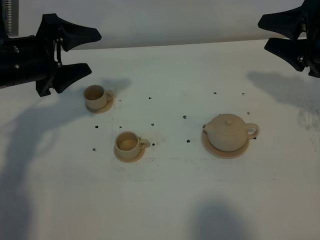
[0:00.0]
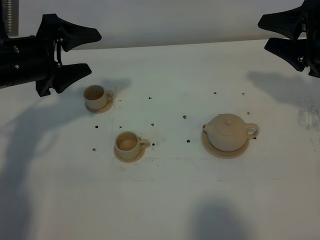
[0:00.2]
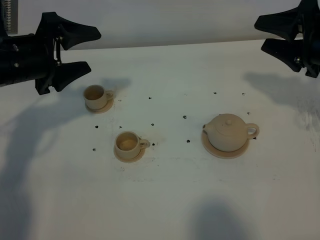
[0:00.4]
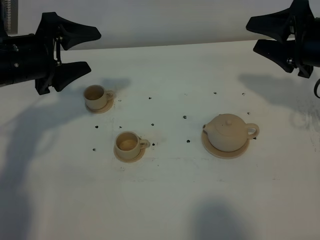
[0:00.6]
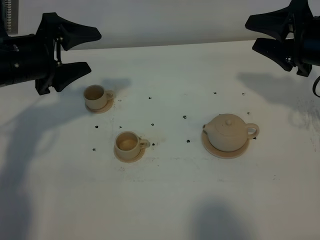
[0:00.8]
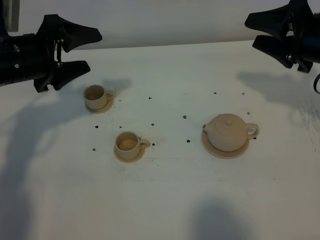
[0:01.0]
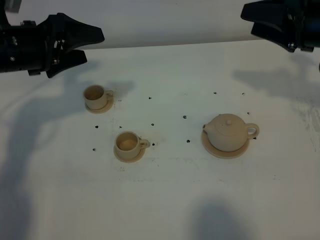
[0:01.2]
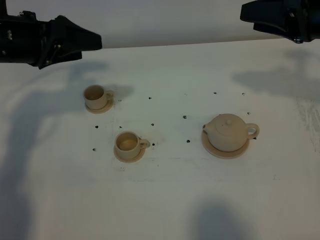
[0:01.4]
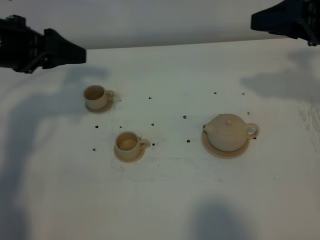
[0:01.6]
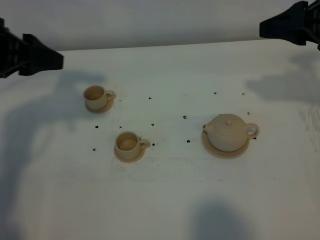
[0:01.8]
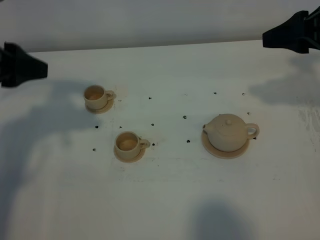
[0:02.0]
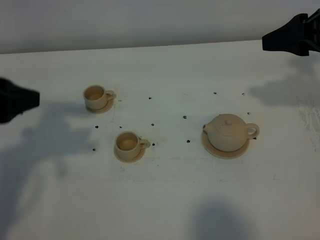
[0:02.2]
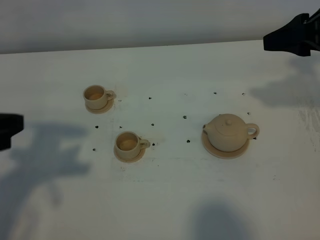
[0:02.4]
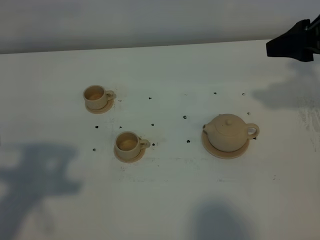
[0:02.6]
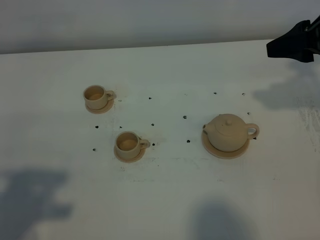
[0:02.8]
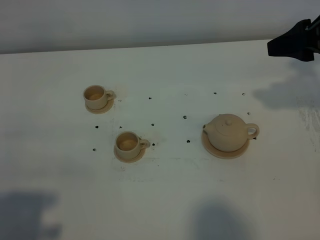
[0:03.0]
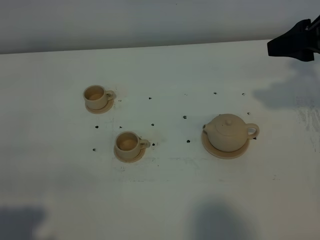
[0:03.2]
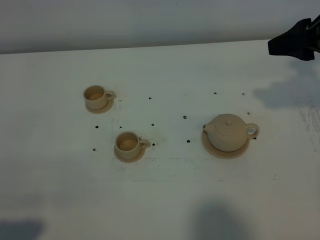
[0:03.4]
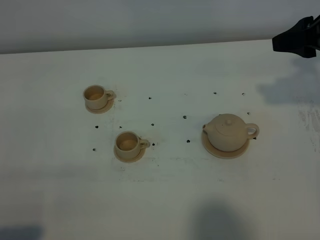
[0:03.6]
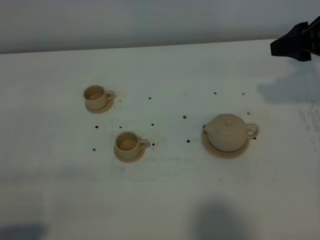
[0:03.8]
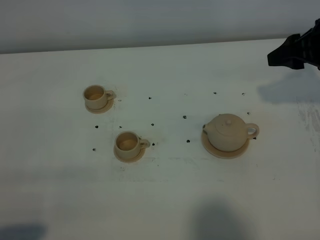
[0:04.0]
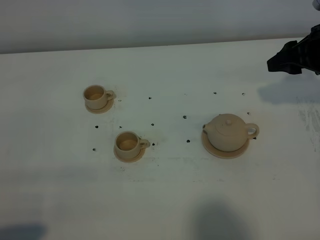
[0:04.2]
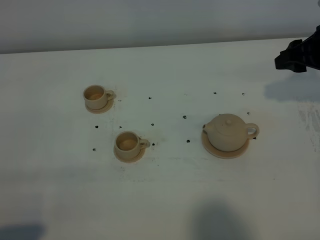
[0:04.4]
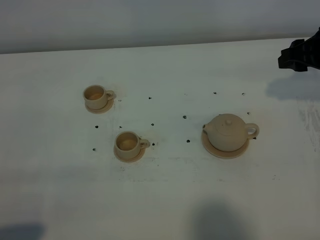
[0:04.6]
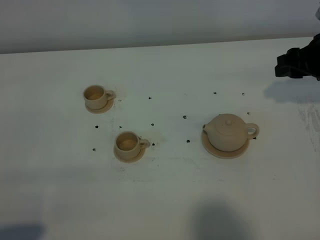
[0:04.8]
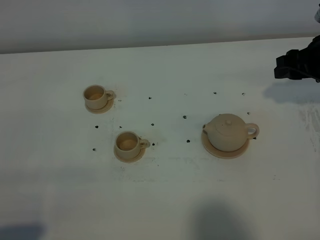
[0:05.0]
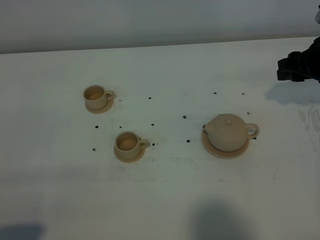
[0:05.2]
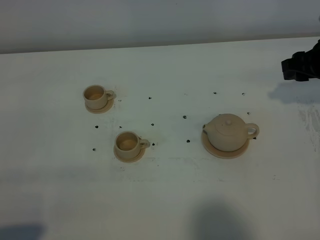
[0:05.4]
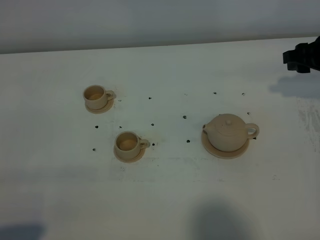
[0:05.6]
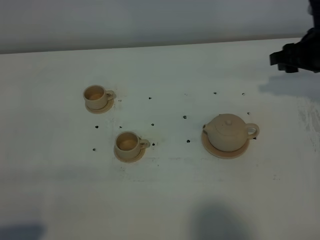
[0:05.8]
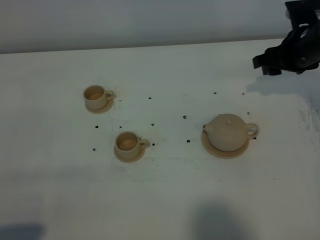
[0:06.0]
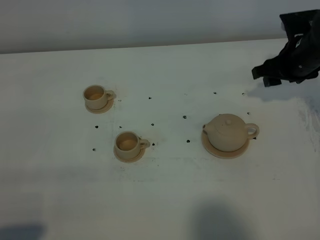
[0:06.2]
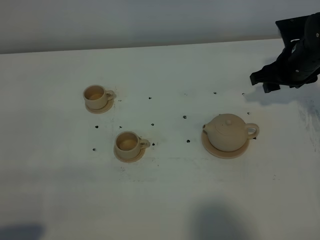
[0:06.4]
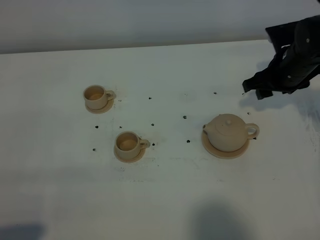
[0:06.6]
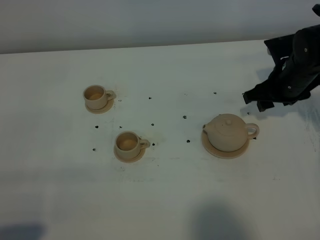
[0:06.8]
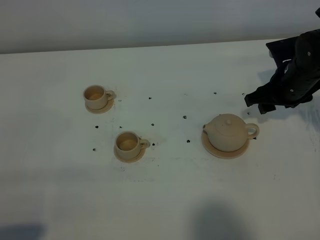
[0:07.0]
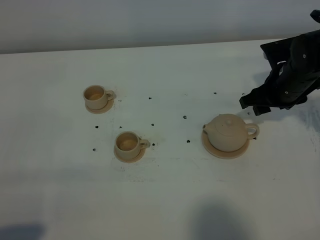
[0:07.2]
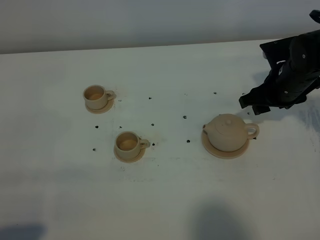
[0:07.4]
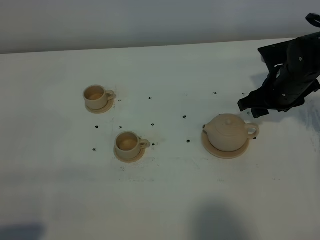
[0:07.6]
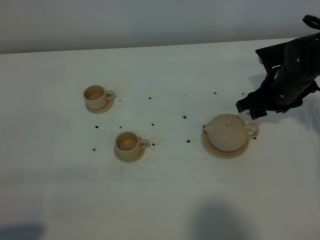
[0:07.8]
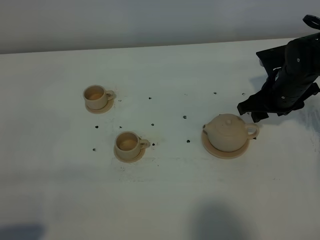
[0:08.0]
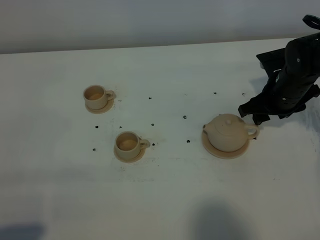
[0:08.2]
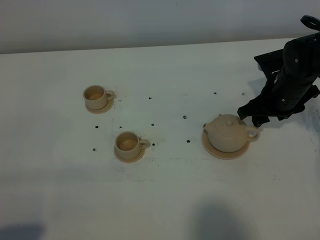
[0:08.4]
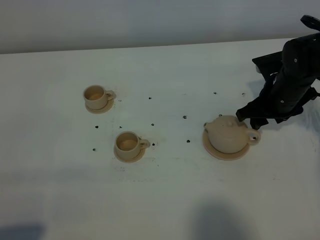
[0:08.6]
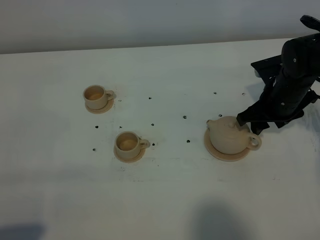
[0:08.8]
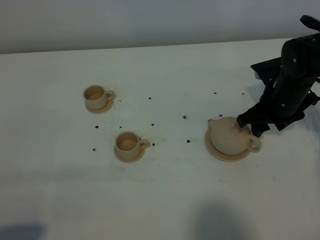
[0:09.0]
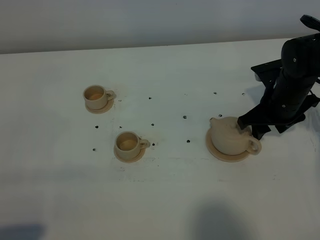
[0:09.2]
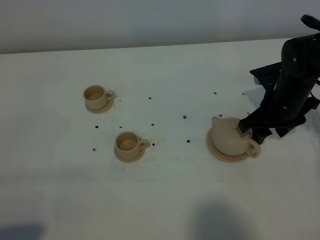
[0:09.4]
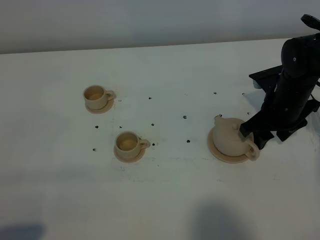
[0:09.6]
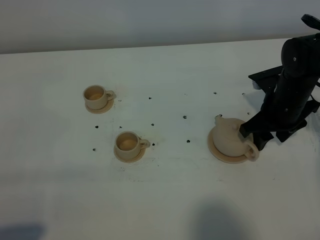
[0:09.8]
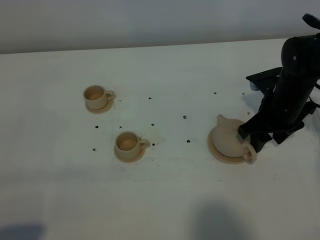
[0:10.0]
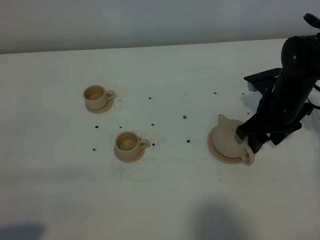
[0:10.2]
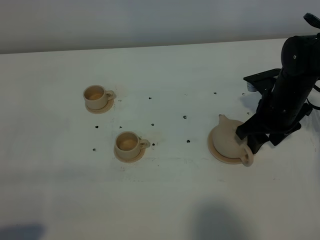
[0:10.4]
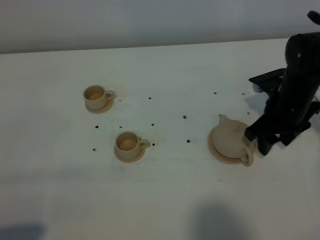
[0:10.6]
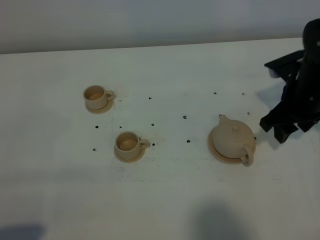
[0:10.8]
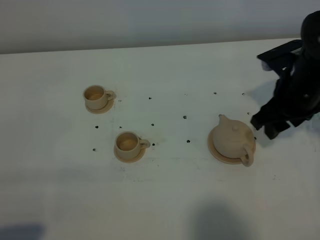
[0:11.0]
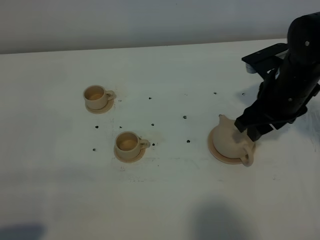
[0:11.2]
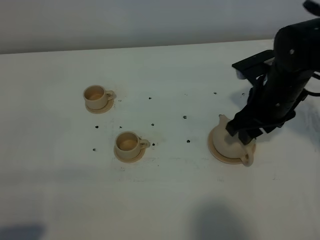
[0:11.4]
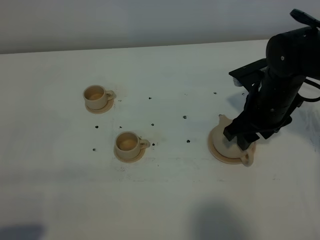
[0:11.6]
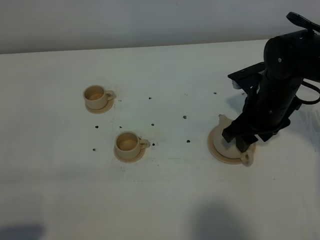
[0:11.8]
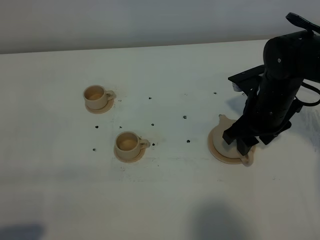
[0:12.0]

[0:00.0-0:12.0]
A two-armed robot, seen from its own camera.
Task of the whole recording: grasp the brown teapot and pour the tea into the two brown teacups one by one, put the brown teapot back in its original place.
0:00.0 to 0:01.6: Both grippers travel together upward, about 5 cm. The left gripper closes.
0:01.6 to 0:03.0: The left gripper goes about 30 cm backward, and closes its fingers.
0:03.0 to 0:04.4: The right gripper is displaced downward and forward by approximately 10 cm, while the left gripper moves downward, some 10 cm.
0:04.4 to 0:06.0: The right gripper goes approximately 5 cm forward and downward.
0:06.0 to 0:07.6: The right gripper ends up roughly 5 cm from where it was.
0:07.6 to 0:09.0: The grippers make only small movements.
0:09.0 to 0:10.4: The grippers move only a little.

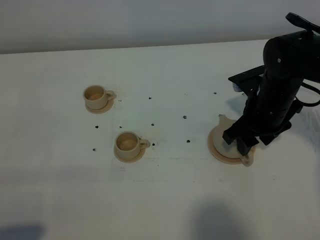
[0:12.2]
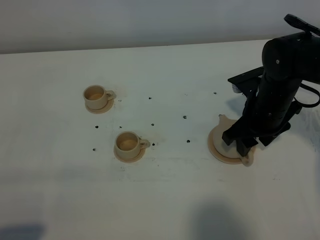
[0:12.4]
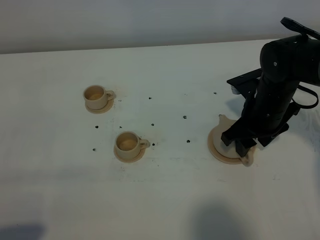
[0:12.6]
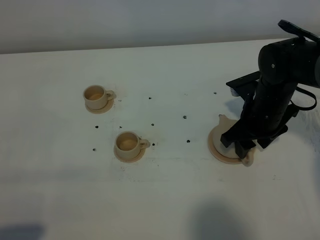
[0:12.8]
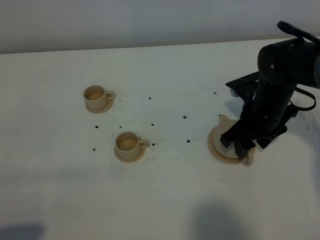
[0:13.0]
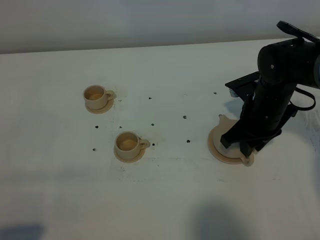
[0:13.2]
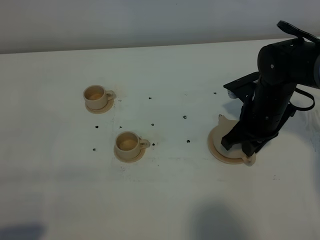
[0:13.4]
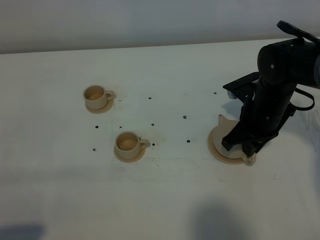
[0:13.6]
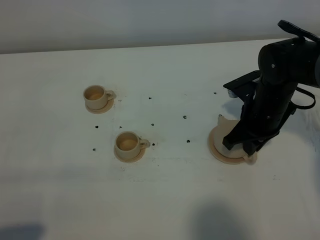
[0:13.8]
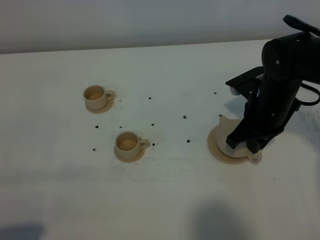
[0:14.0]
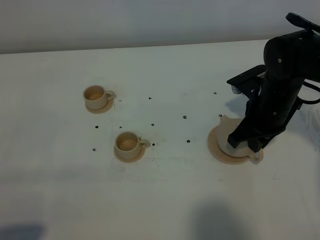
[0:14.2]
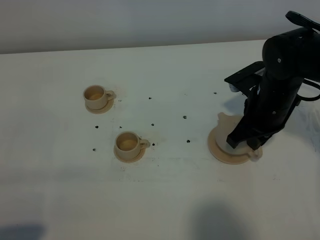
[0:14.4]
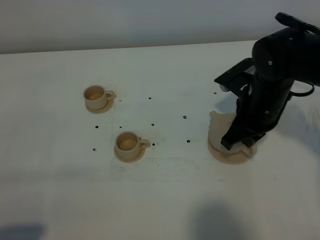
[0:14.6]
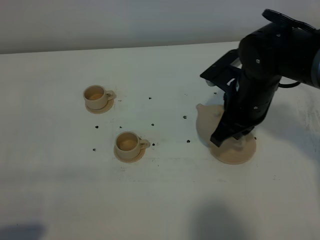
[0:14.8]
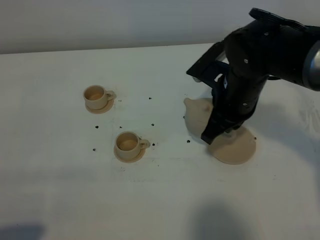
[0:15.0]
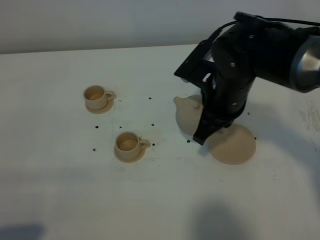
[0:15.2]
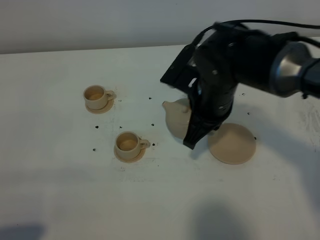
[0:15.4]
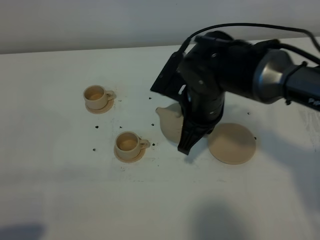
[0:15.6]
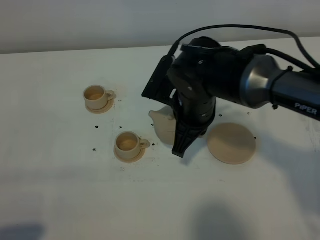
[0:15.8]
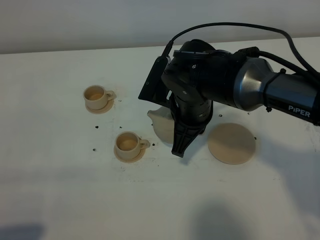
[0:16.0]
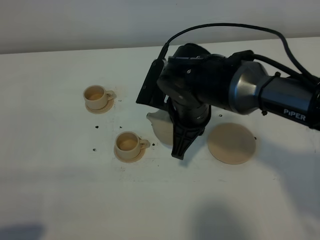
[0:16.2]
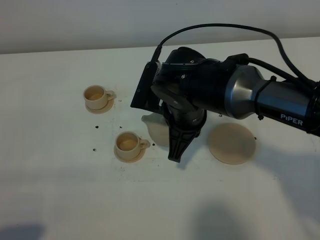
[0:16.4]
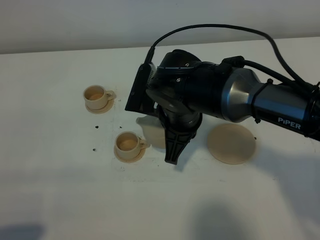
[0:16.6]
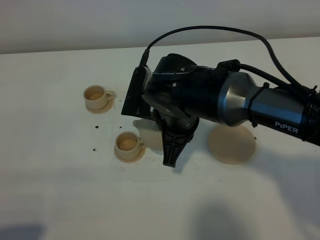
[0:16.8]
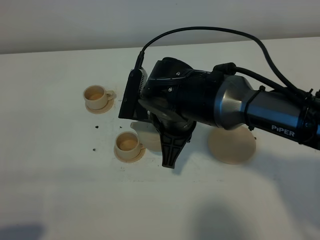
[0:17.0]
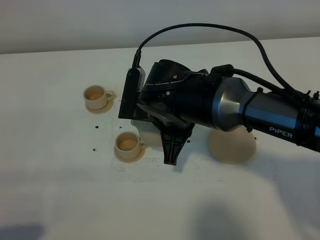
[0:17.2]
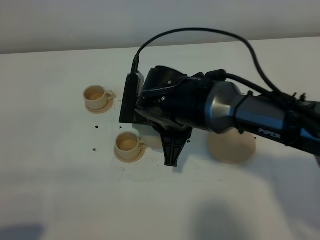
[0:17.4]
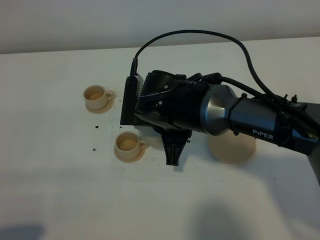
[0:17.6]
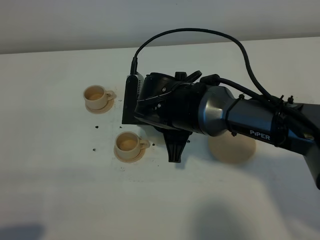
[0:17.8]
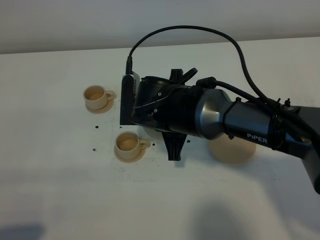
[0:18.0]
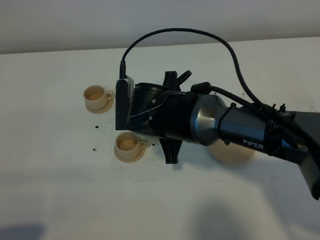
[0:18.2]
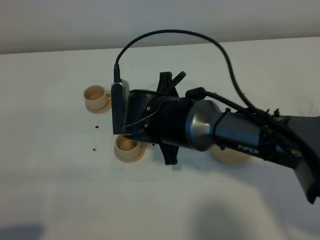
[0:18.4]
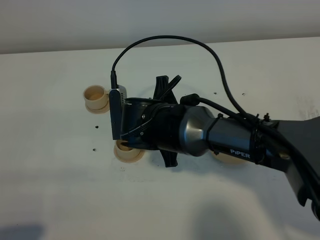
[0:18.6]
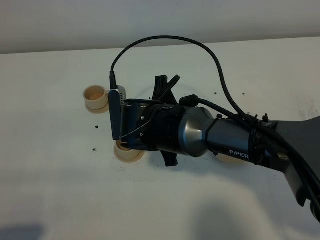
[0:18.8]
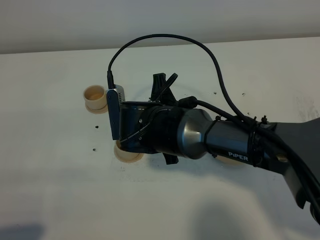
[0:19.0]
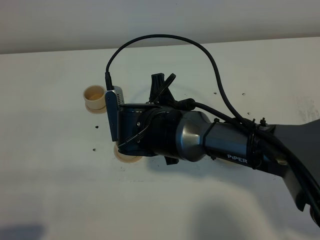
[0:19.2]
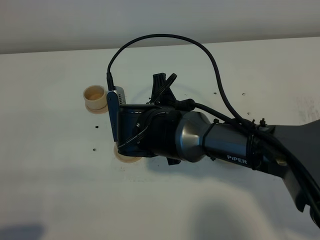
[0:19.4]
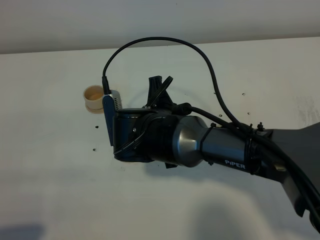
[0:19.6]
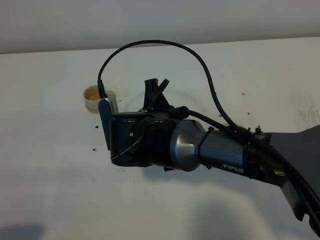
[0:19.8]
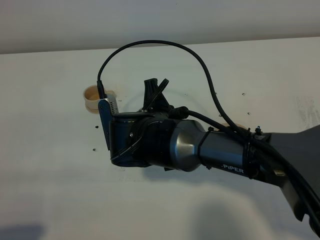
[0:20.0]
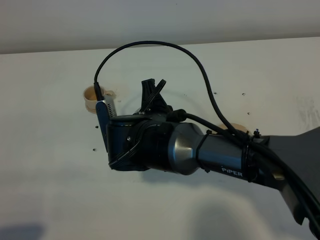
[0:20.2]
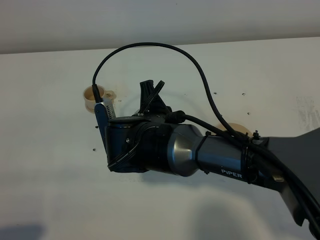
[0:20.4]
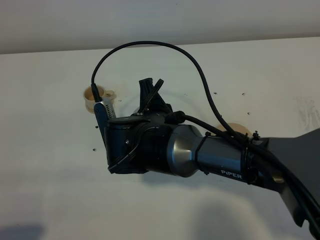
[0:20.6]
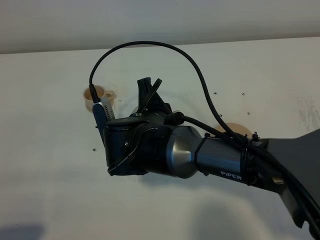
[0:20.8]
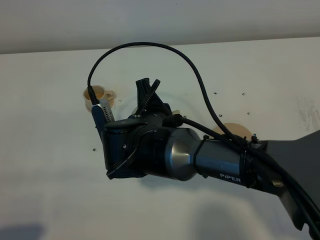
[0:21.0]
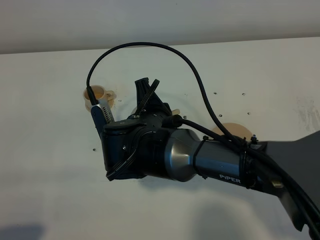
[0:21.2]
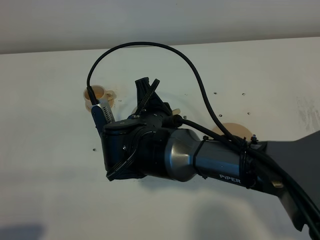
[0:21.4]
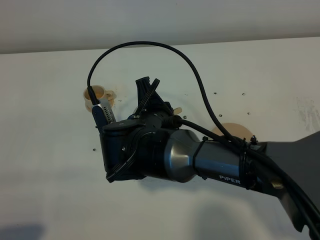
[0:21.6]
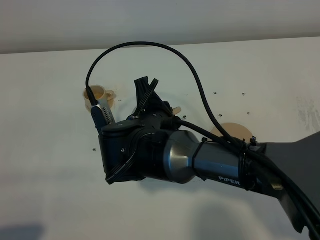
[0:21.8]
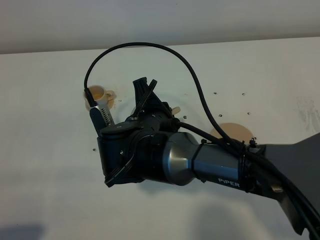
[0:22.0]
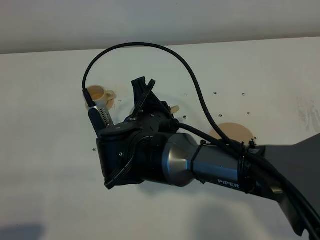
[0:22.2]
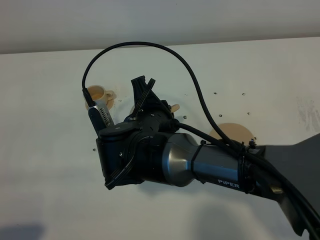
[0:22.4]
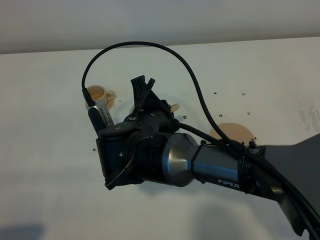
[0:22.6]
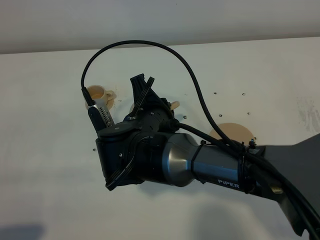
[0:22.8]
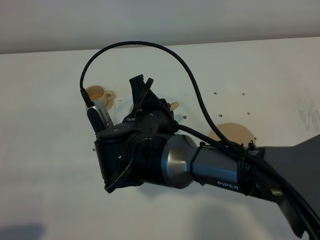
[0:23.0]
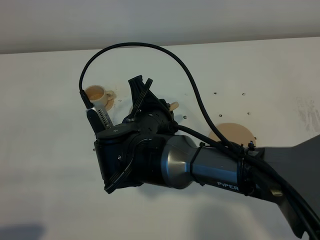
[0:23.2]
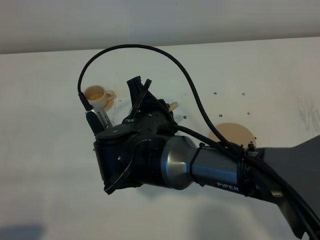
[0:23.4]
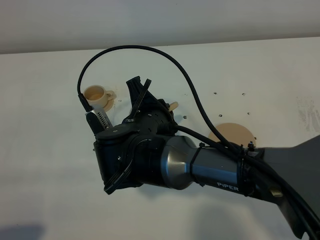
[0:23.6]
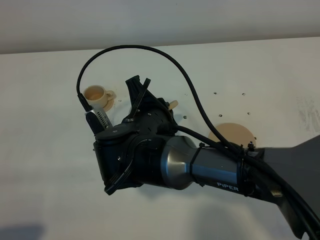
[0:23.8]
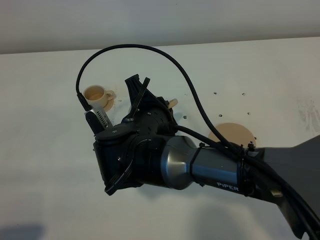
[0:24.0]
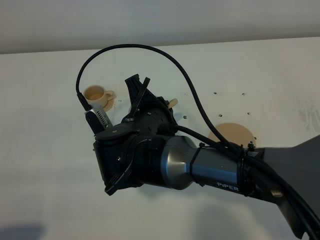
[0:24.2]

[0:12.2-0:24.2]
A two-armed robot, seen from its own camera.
Task of the whole recording: grasp the brown teapot and pour the tea into the two brown teacups one by one, put the brown teapot back in its original place.
0:12.2 to 0:13.8: The right gripper closes its fingers.
0:13.8 to 0:15.2: The right gripper is displaced to the left and upward by about 10 cm.
0:15.2 to 0:16.6: The right gripper travels to the left by some 5 cm.
0:19.8 to 0:21.2: The grippers make only small movements.
0:21.2 to 0:22.6: Both grippers stay about where they are.
0:22.6 to 0:24.2: The grippers stay close to where they were, moving slightly.
